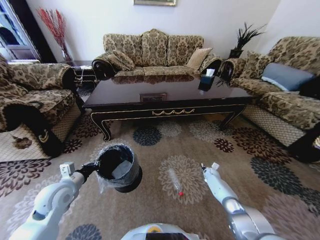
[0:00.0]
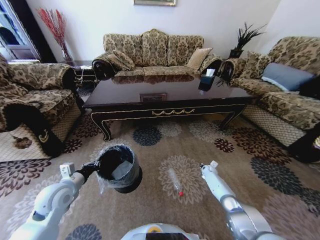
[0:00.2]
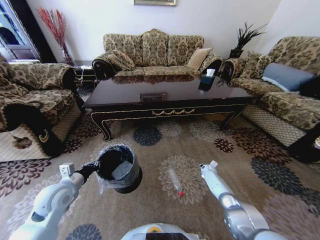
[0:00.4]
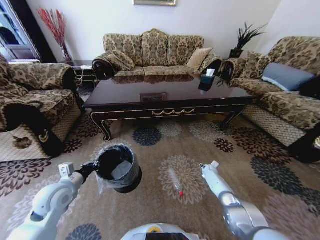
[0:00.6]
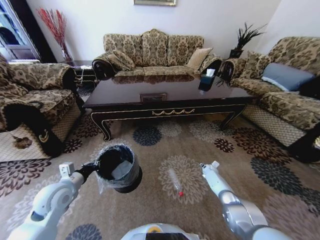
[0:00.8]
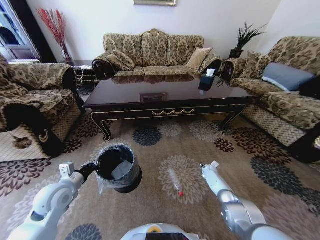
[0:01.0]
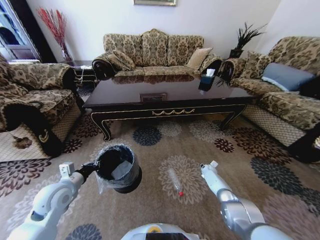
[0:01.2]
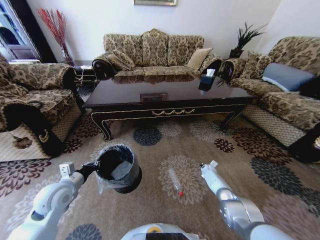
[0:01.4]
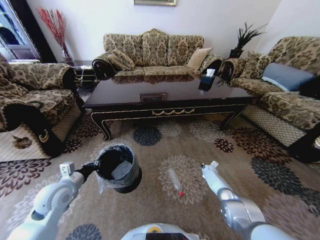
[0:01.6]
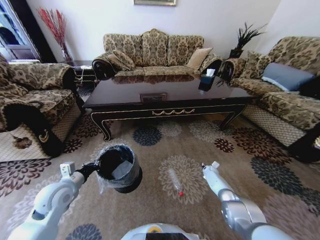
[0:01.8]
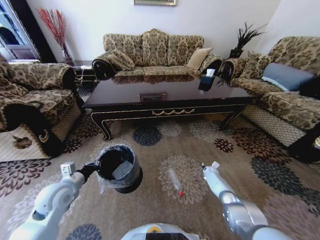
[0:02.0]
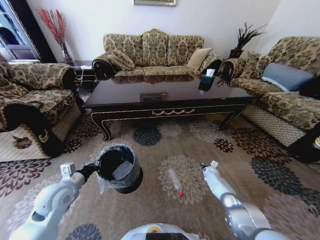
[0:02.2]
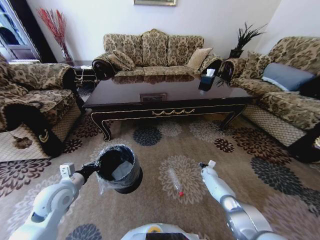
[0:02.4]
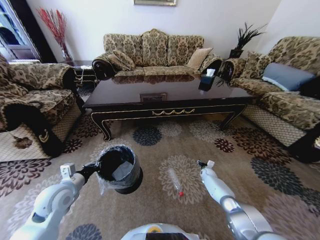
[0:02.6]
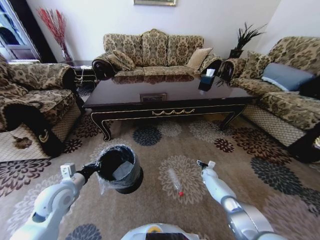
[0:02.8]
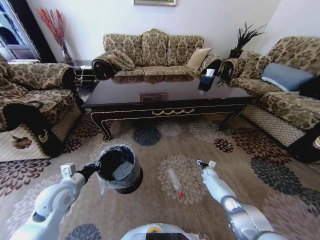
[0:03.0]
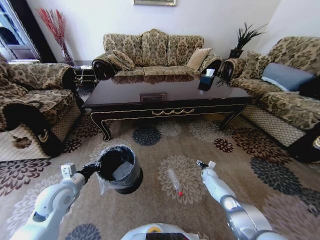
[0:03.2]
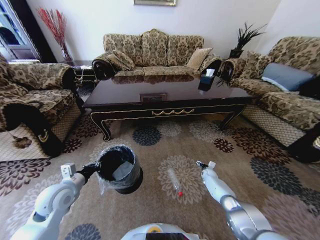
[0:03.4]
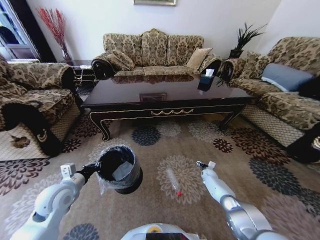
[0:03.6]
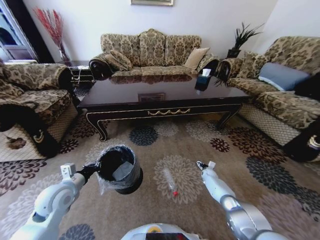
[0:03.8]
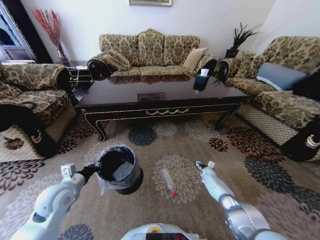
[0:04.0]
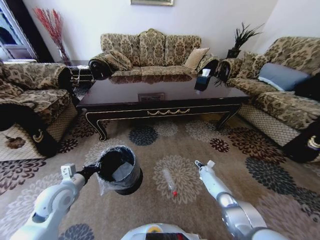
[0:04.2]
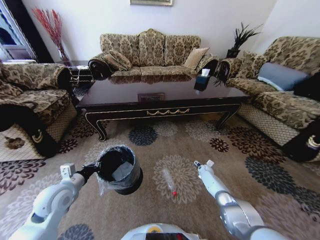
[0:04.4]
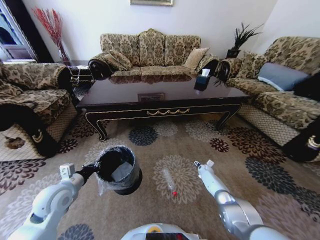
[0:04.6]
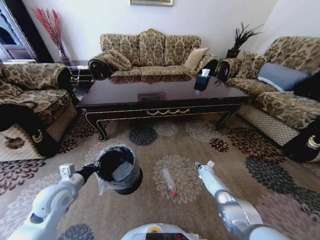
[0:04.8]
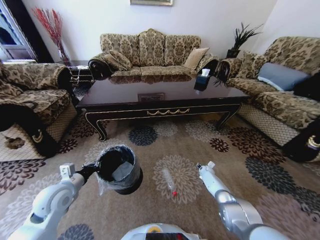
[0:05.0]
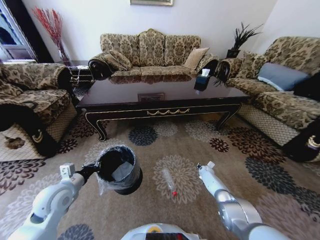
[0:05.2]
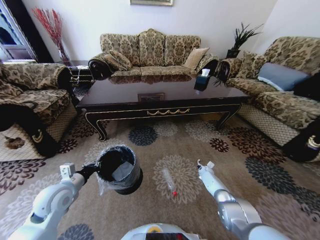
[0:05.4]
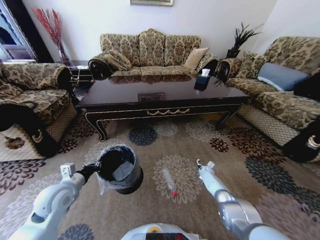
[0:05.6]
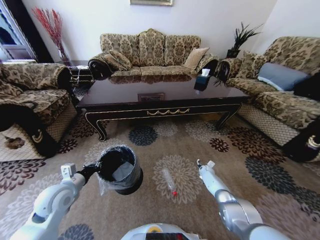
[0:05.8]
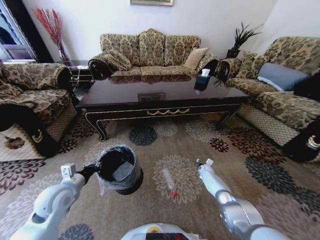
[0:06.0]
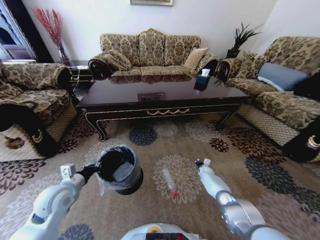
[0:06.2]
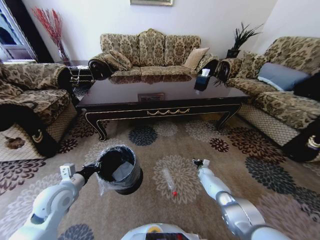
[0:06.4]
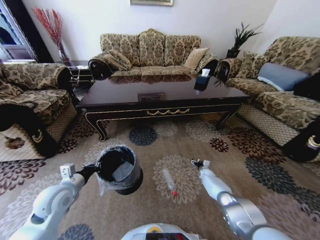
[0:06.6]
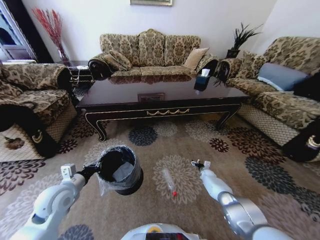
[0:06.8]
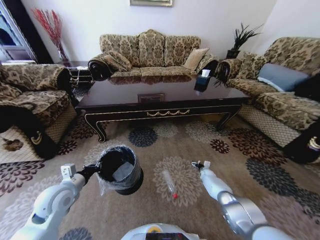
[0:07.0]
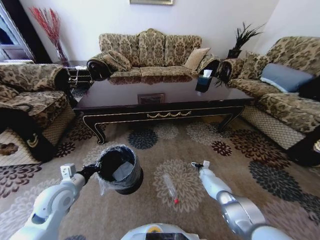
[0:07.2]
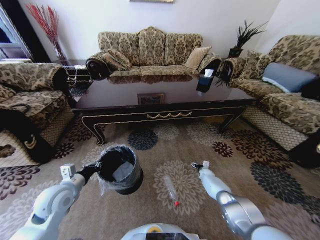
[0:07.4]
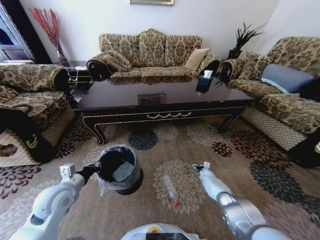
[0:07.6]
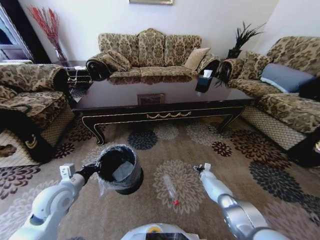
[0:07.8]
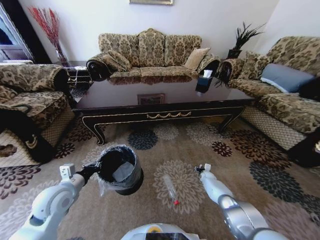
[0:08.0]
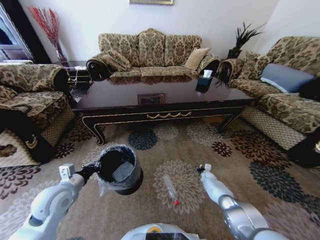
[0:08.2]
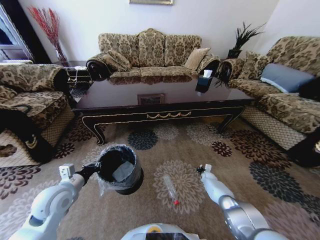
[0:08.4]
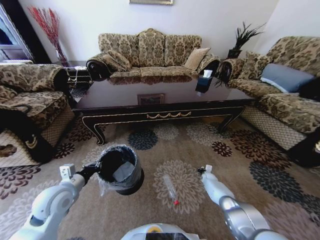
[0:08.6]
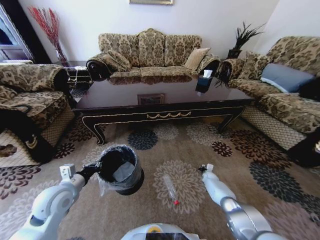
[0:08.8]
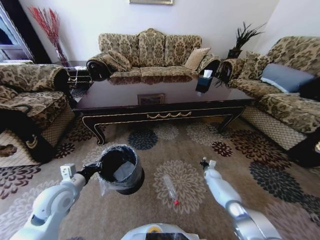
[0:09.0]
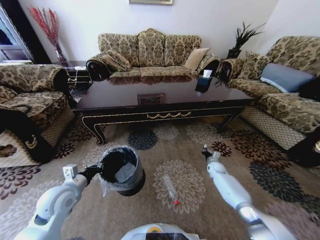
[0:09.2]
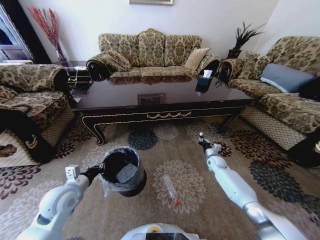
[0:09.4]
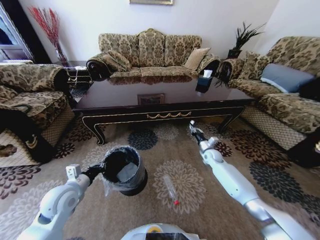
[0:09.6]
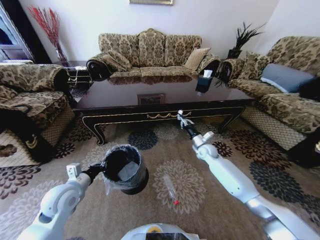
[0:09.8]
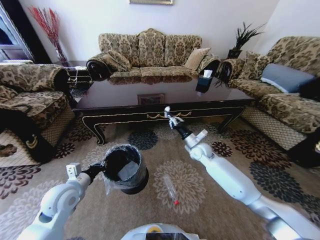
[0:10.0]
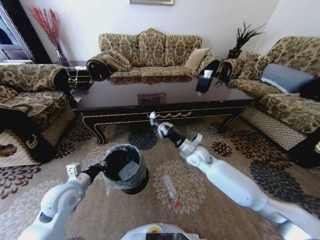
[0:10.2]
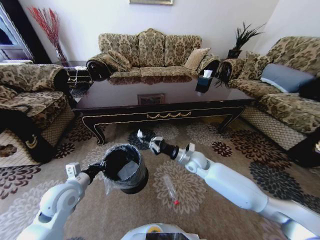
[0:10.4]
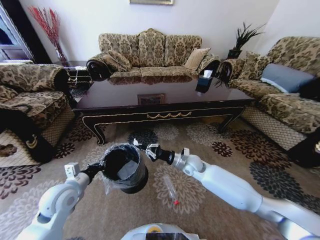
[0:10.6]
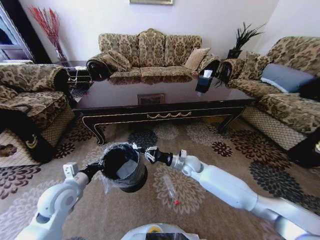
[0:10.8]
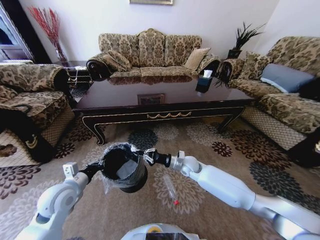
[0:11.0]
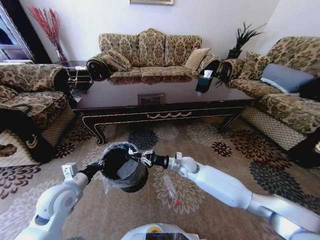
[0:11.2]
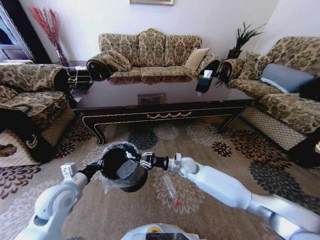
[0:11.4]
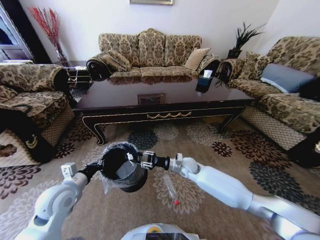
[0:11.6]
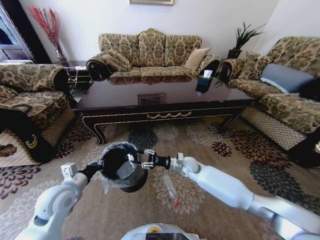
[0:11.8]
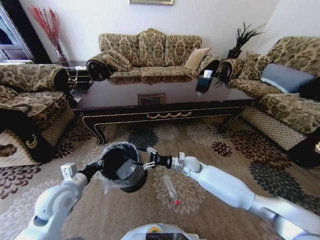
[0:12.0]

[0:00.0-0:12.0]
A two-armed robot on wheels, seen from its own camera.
Task of the whole recording: Move to the front of the table and pick up the trash from the floor, then place it into the trash bin.
0:00.0 to 0:01.6: The right gripper opens, then closes again.
0:01.6 to 0:03.0: The right gripper opens.
0:04.4 to 0:06.0: The right gripper closes its fingers.
0:06.0 to 0:07.6: The right gripper opens its fingers.
0:07.6 to 0:09.0: The right gripper closes its fingers.
0:09.0 to 0:10.4: The right gripper is displaced upward and to the left by approximately 35 cm.
0:10.4 to 0:12.0: The right gripper goes some 5 cm downward, and opens its fingers.

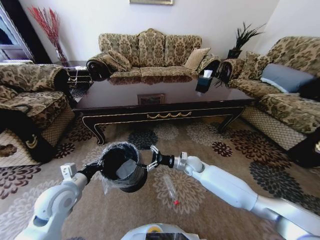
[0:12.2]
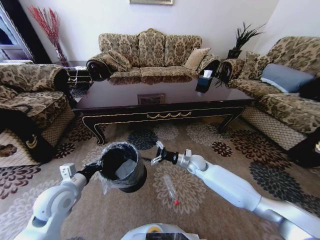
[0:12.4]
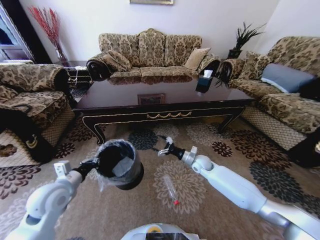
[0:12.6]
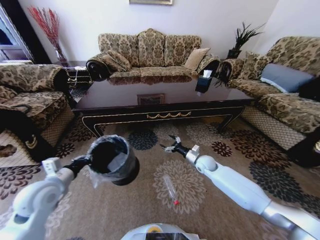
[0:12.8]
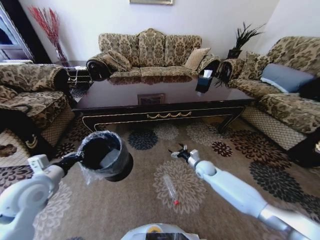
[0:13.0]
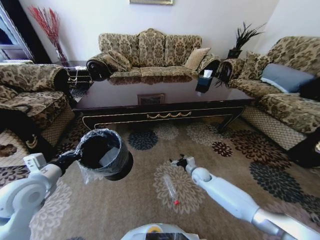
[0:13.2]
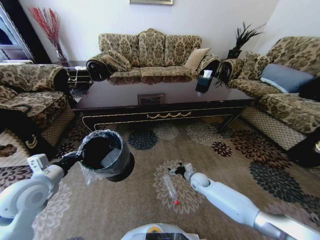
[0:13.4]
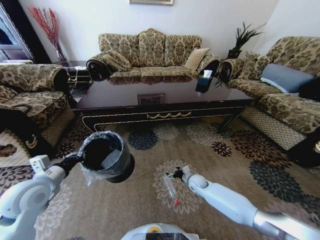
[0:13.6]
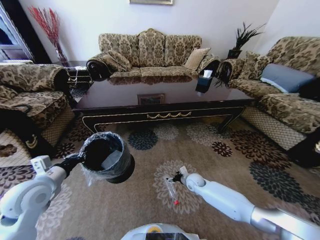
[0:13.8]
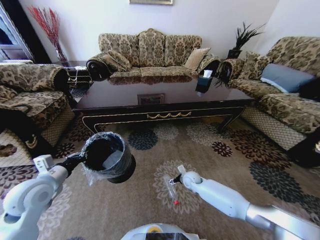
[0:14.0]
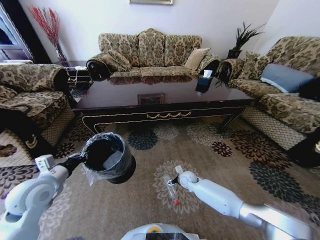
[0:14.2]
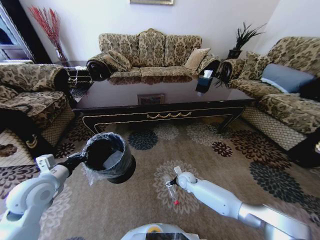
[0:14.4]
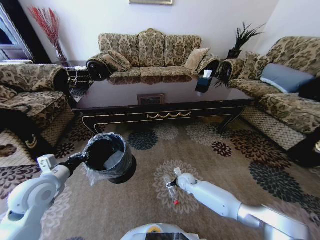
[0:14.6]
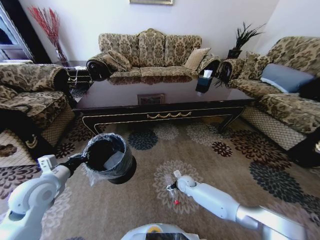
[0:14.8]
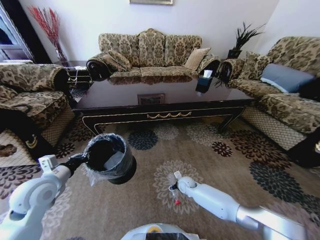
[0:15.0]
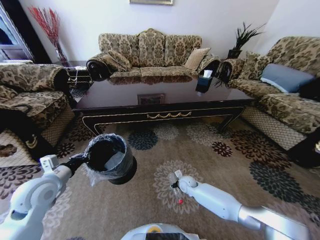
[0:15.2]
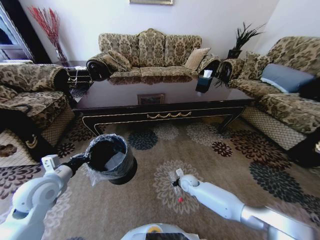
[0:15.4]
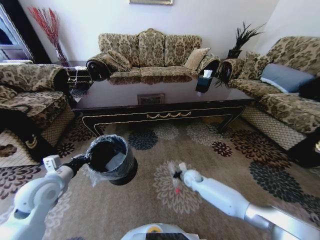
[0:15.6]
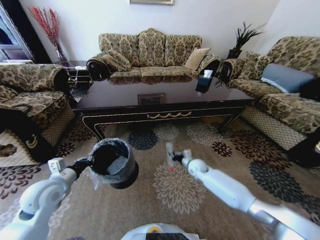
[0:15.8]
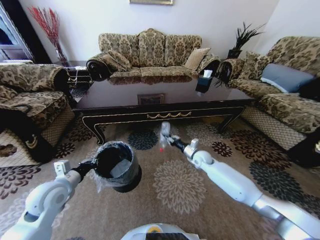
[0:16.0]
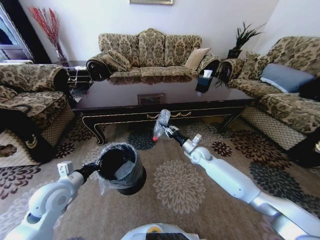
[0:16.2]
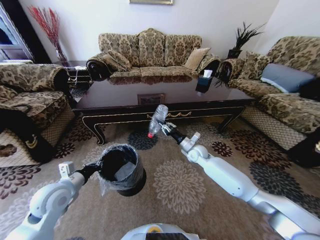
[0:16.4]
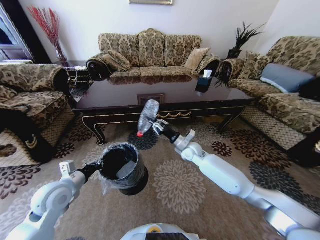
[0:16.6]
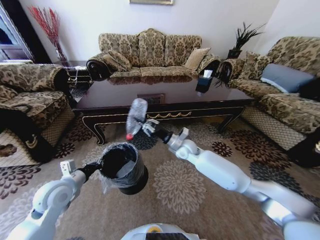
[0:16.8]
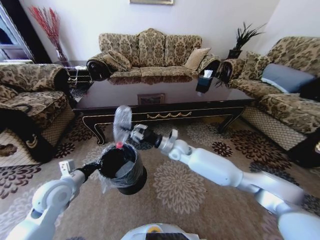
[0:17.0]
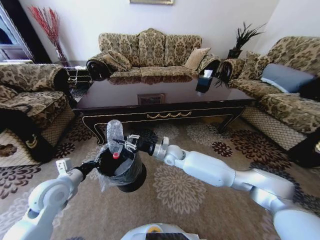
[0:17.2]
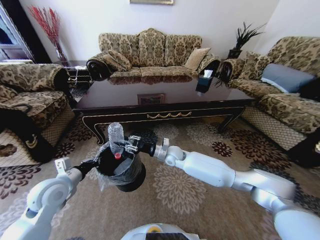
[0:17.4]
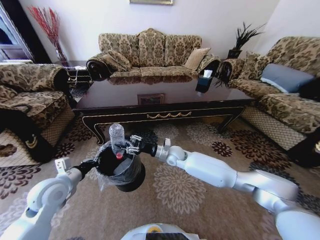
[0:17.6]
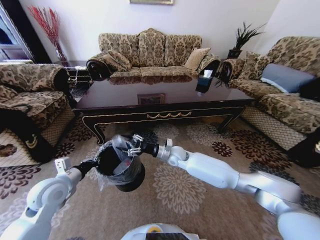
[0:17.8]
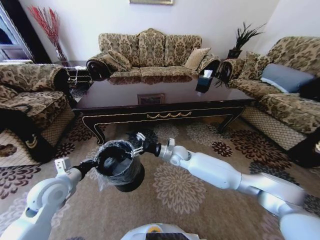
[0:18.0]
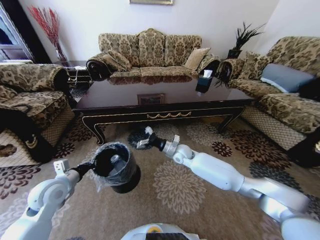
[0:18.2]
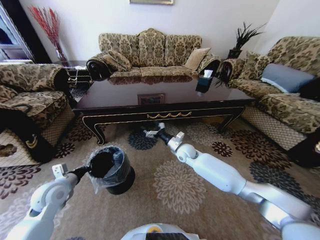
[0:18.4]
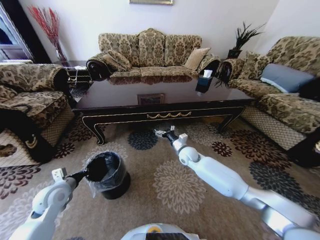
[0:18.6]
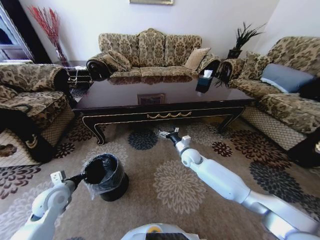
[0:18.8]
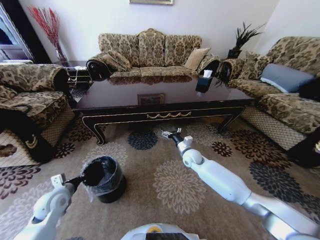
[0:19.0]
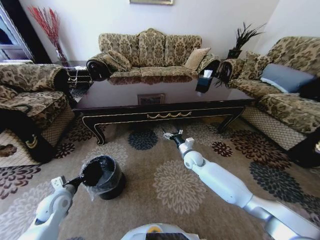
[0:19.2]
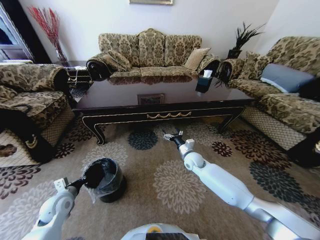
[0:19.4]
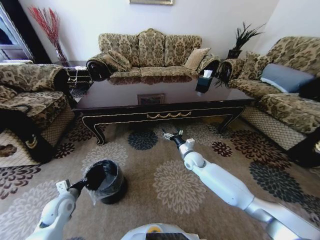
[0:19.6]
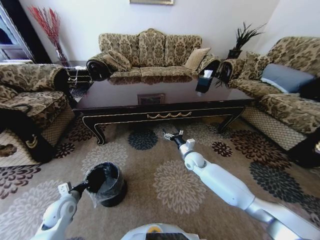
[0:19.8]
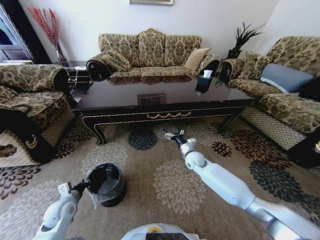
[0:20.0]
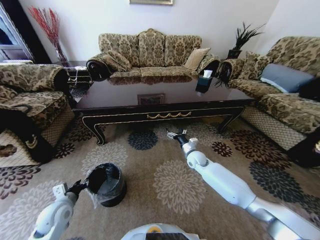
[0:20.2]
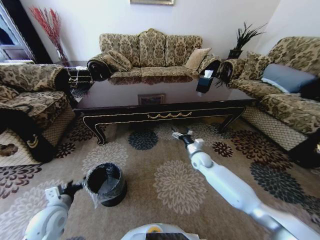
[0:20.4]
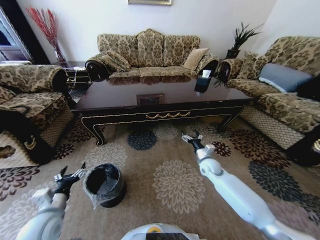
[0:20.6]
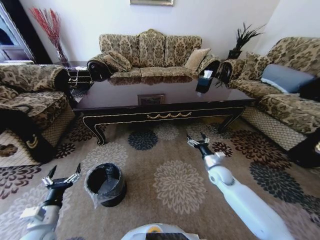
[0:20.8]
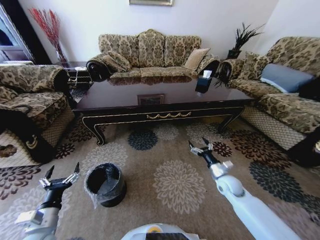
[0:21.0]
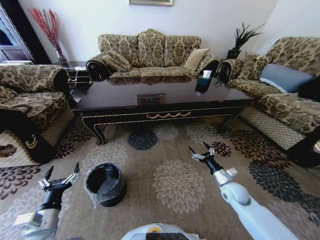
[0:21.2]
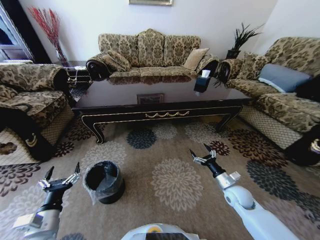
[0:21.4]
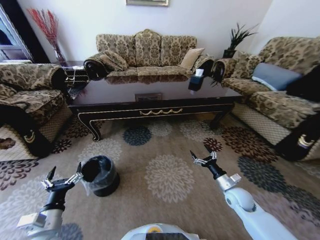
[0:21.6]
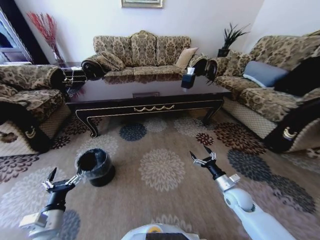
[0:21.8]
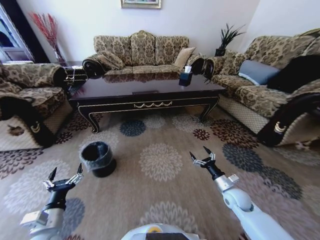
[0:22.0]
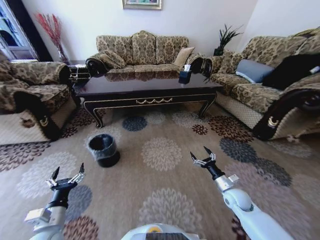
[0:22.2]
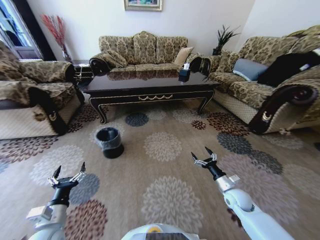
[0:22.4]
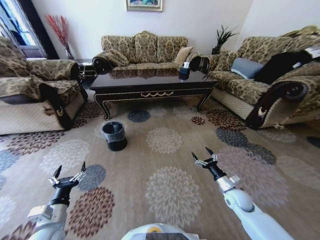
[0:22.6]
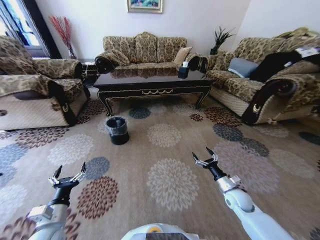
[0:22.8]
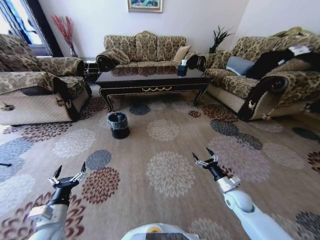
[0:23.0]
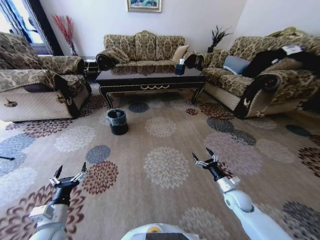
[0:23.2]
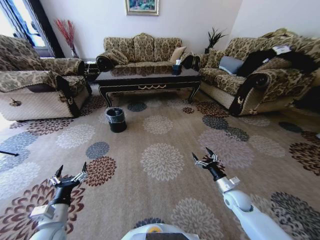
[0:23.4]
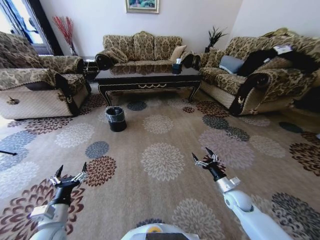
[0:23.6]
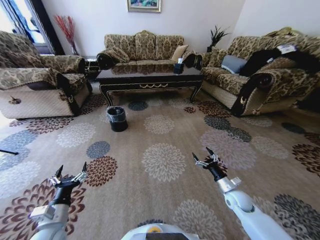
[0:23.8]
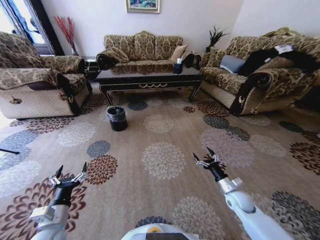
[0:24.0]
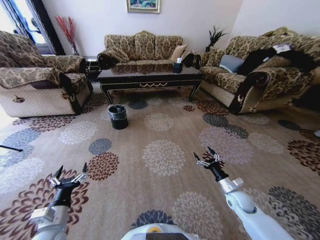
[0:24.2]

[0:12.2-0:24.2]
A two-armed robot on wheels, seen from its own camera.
Task of the whole recording: Move to the front of the table and pick up the trash from the floor, then place it into the trash bin.
0:12.2 to 0:13.8: The left gripper is displaced to the left by approximately 5 cm. The right gripper goes some 10 cm downward.
0:13.8 to 0:15.2: The right gripper closes.
0:15.2 to 0:16.6: The right gripper travels upward by about 20 cm, and closes up.
0:16.6 to 0:18.2: The right gripper opens up.
0:18.2 to 0:19.8: The right gripper travels to the right by roughly 5 cm; the left gripper travels downward by about 15 cm.
0:19.8 to 0:21.2: The right gripper travels to the right and backward by some 20 cm, while the left gripper goes roughly 15 cm backward and upward, and opens.
